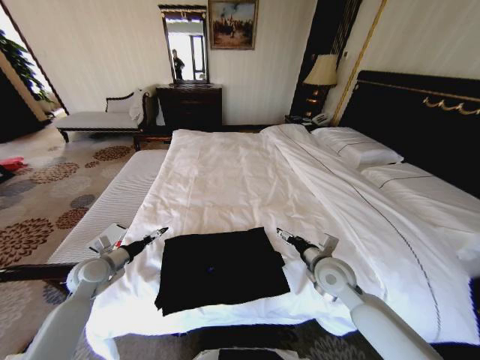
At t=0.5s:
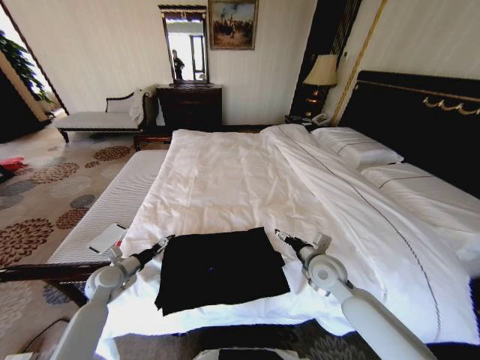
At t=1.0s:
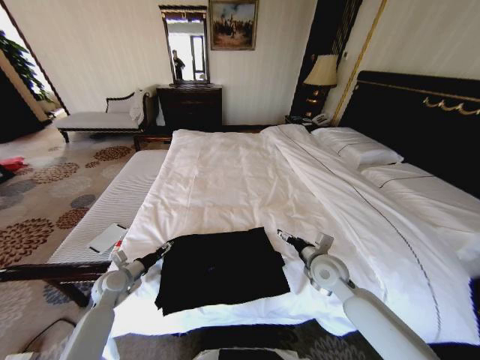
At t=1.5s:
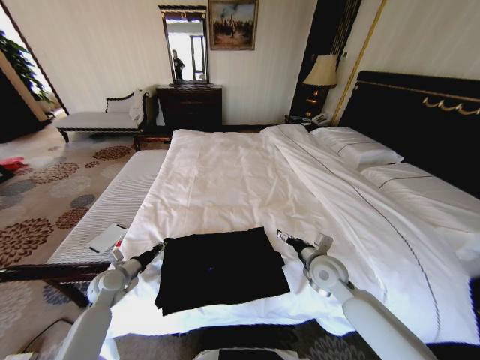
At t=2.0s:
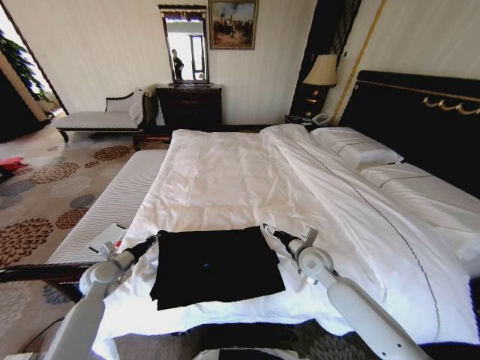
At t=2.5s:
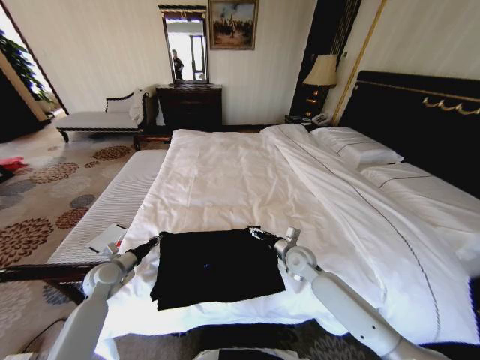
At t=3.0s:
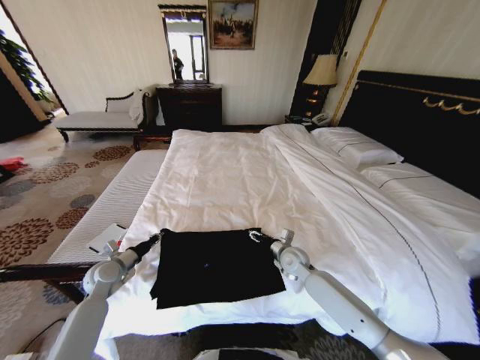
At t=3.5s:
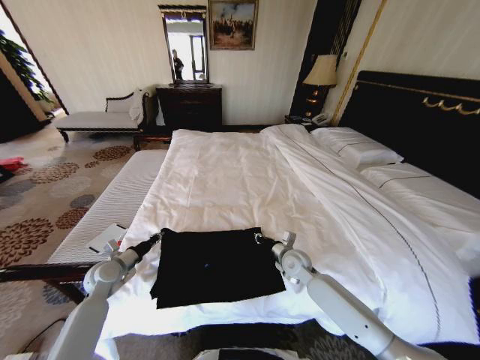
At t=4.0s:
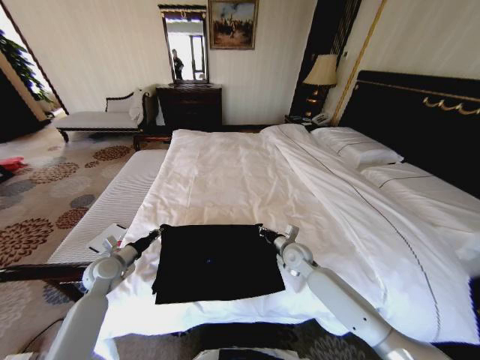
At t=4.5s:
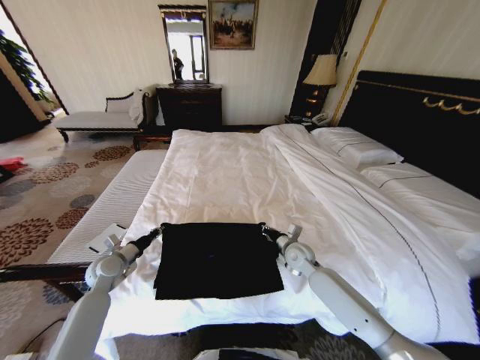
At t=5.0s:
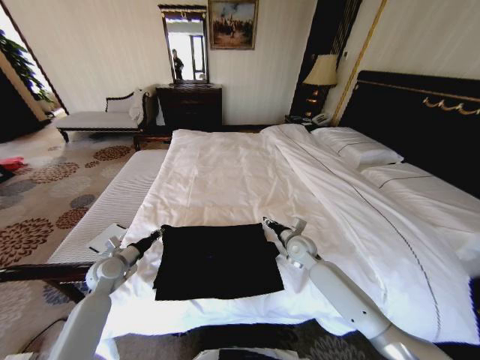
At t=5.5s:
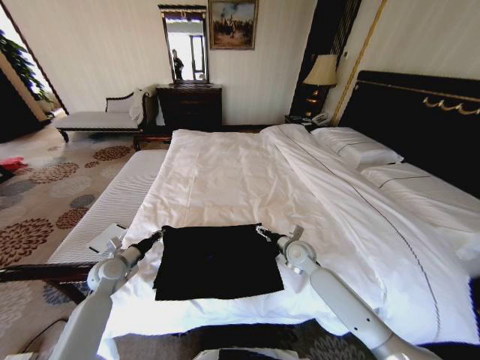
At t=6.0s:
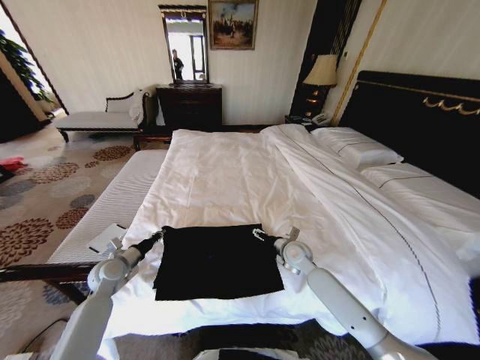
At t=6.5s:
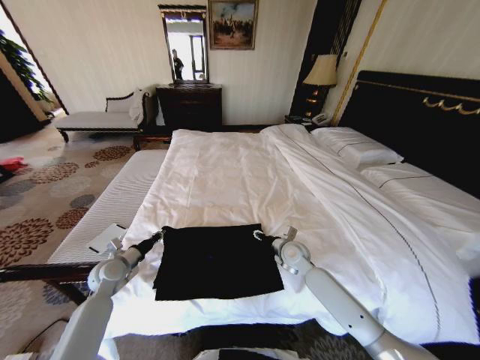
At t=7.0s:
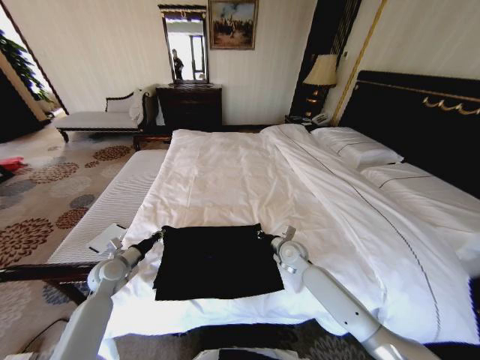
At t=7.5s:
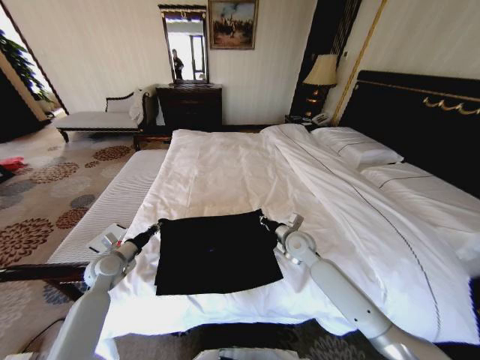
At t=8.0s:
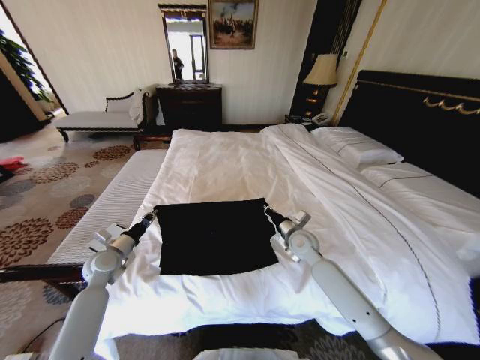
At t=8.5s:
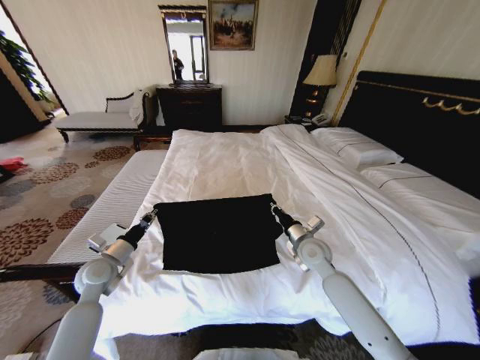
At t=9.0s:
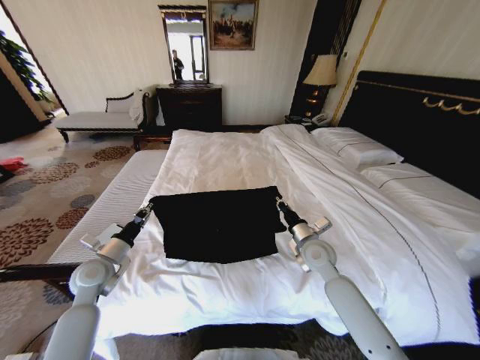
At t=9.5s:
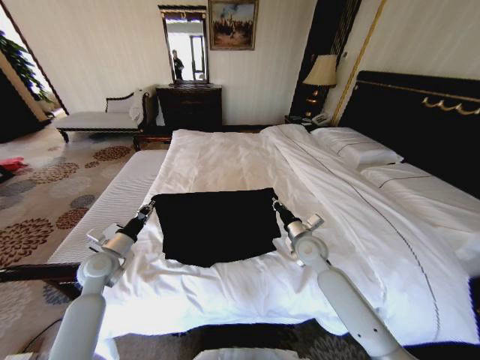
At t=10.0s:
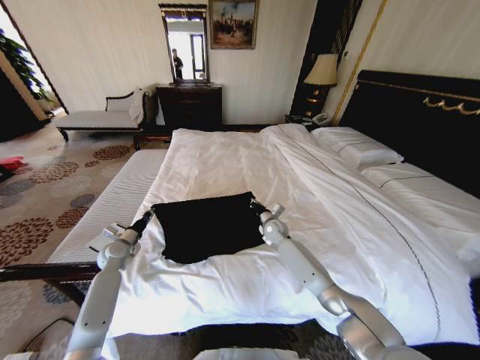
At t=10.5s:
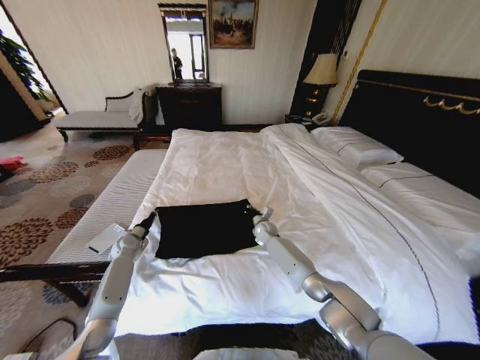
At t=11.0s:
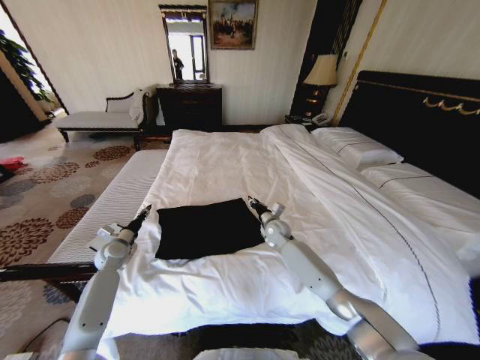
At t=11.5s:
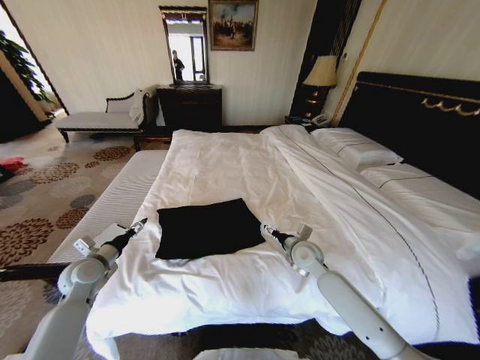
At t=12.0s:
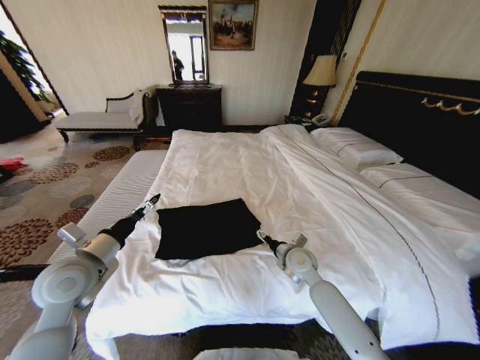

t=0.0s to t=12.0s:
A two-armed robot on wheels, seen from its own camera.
Task of the whole recording: Fold the clothes on the bed.
t=0.0s to t=2.0s: The left gripper closes. The right gripper goes approximately 5 cm forward.
t=2.0s to t=4.0s: The right gripper shifts by some 5 cm, and closes.
t=4.0s to t=6.0s: The right gripper opens.
t=6.0s to t=8.0s: The right gripper closes.
t=8.0s to t=10.0s: The left gripper moves forward, some 5 cm. The right gripper moves forward and downward, some 10 cm.
t=10.0s to t=12.0s: The right gripper is displaced backward by some 15 cm, and opens. Meanwhile the left gripper moves upward, backward and to the right, about 25 cm, and opens.

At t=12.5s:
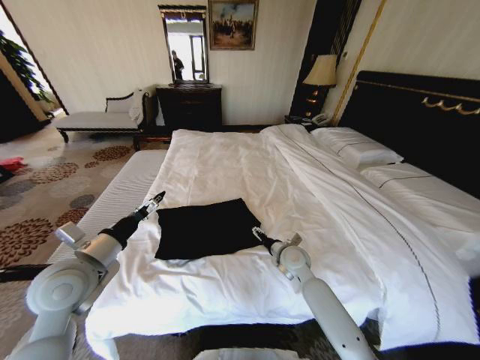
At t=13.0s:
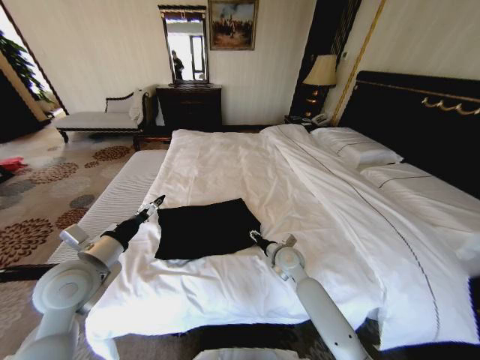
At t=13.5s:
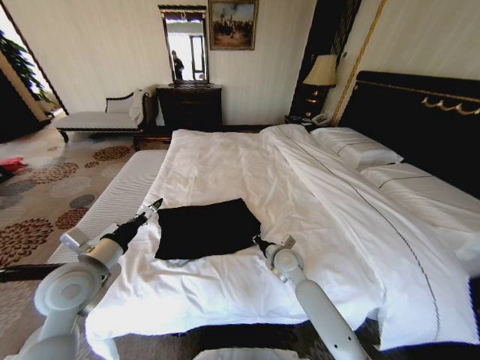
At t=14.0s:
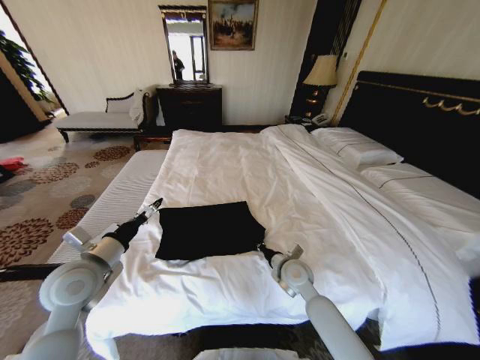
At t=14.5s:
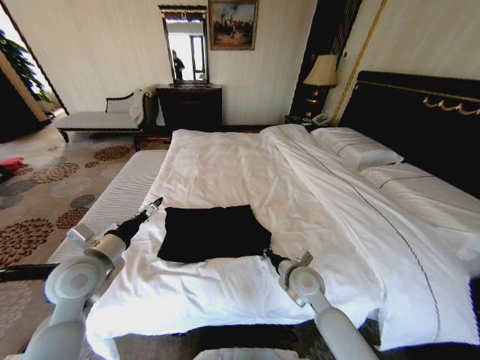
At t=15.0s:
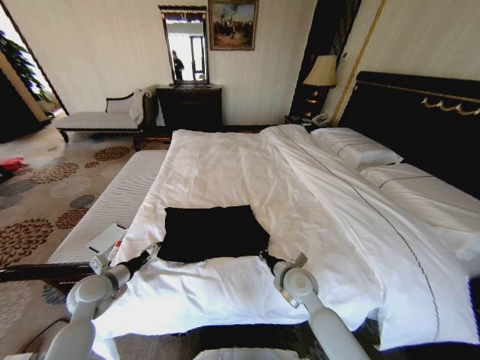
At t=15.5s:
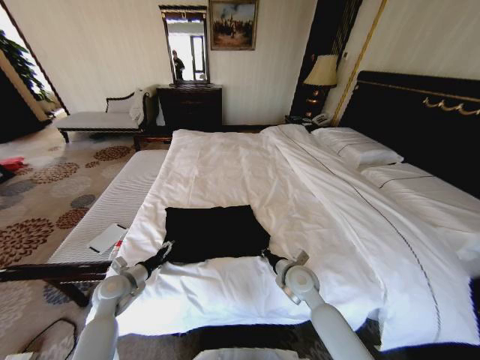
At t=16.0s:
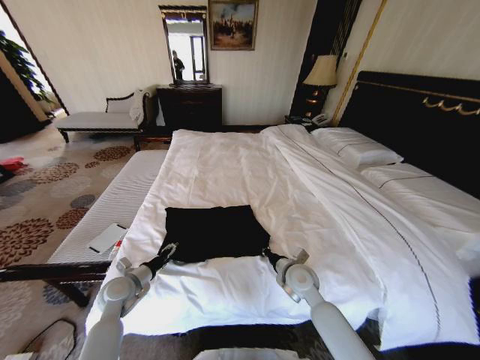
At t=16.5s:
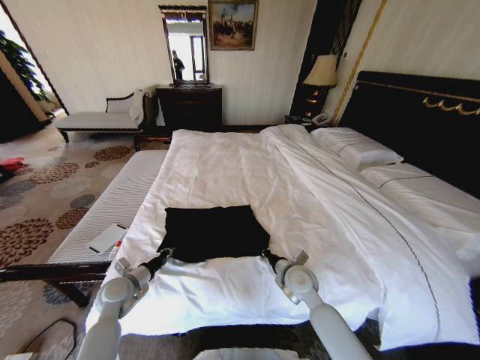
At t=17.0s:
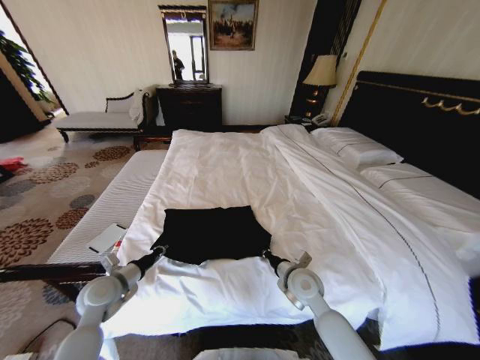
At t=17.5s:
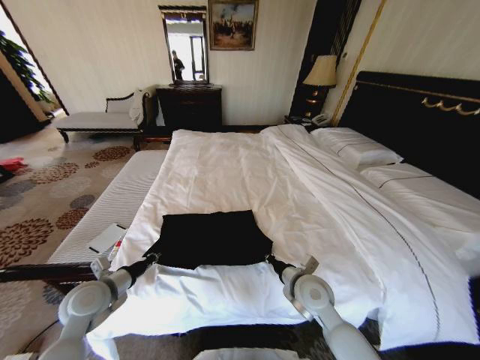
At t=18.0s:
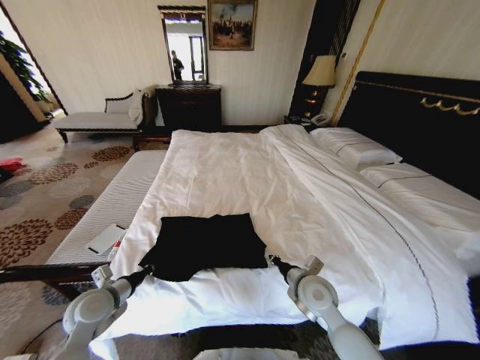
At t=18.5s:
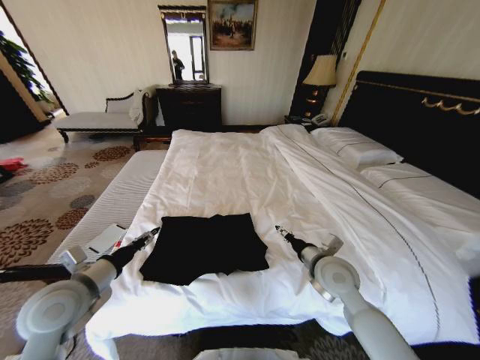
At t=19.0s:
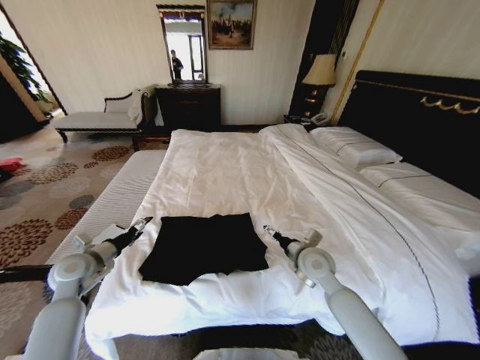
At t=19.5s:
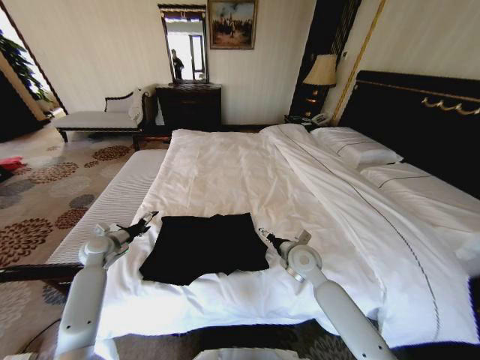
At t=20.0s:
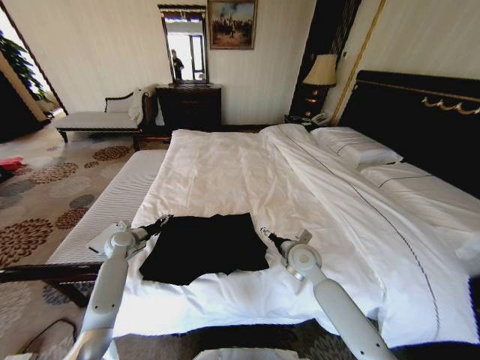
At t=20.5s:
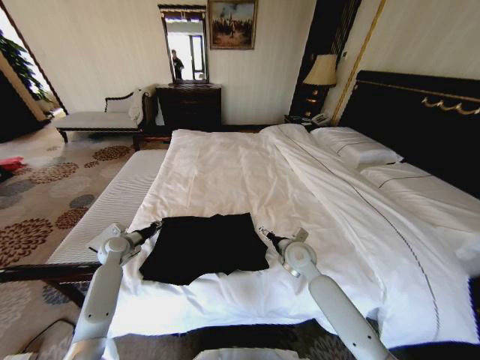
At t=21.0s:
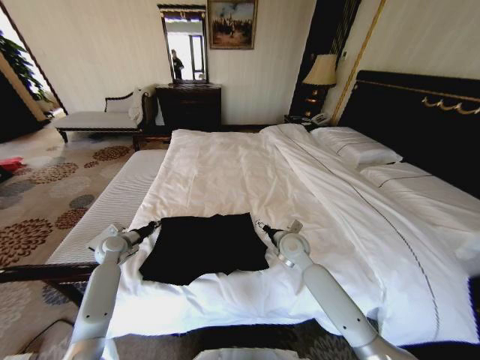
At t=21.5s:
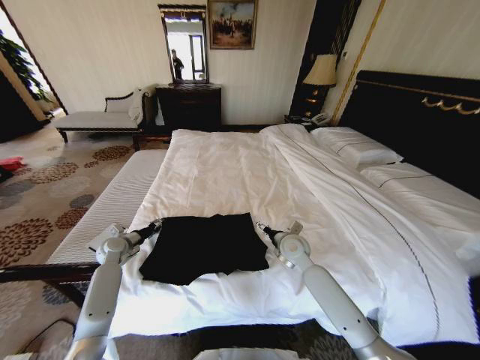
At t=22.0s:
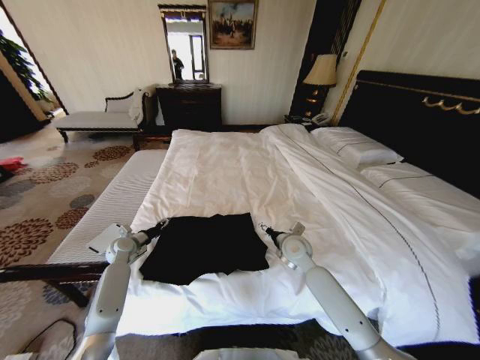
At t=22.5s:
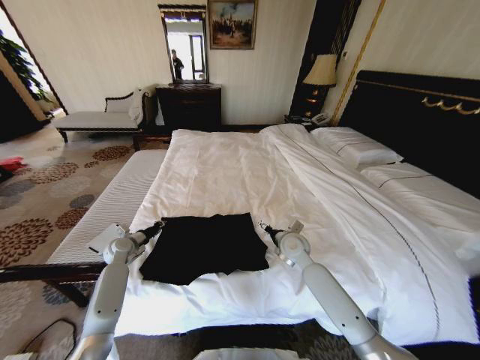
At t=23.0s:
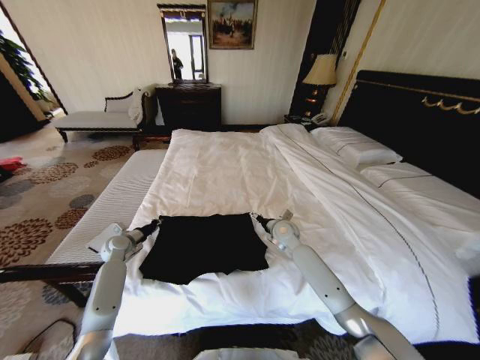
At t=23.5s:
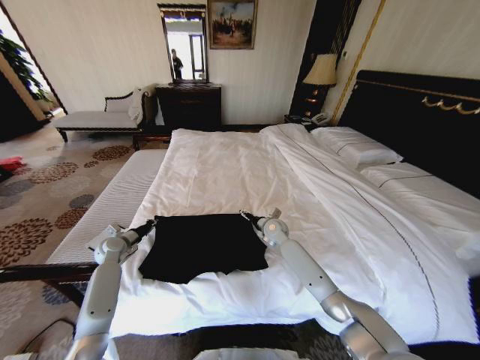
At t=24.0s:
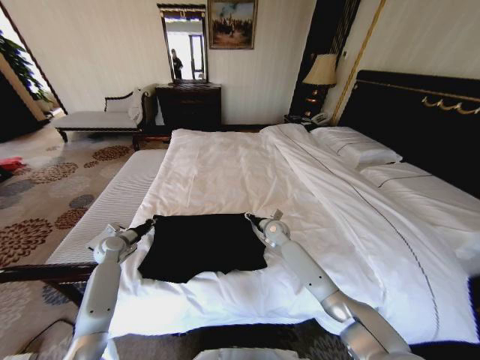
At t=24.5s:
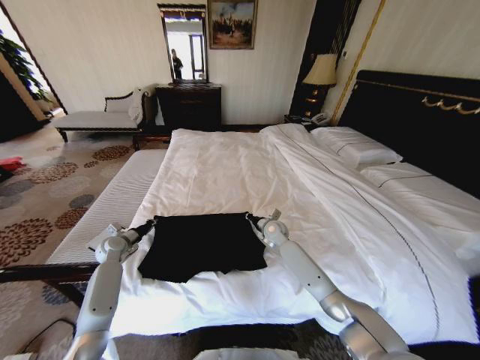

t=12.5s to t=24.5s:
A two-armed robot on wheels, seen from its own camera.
Task of the whole recording: Fold the clothes on the bed.
t=12.5s to t=14.5s: The right gripper heads backward, covering roughly 5 cm, and closes its fingers.
t=14.5s to t=16.5s: The left gripper is displaced downward by about 15 cm, and closes its fingers.
t=16.5s to t=18.5s: The right gripper is displaced upward by approximately 10 cm, and opens. The left gripper moves upward and backward, some 20 cm, and opens up.
t=18.5s to t=20.5s: The left gripper is displaced forward and downward by roughly 25 cm, and opens and closes again. The right gripper heads forward and downward, covering about 10 cm, and opens.
t=20.5s to t=22.5s: The left gripper opens and closes again.
t=22.5s to t=24.5s: The right gripper travels forward by some 10 cm, and closes.

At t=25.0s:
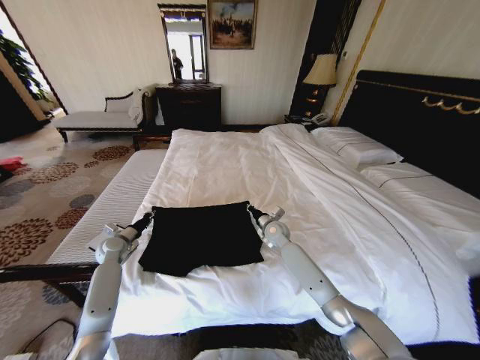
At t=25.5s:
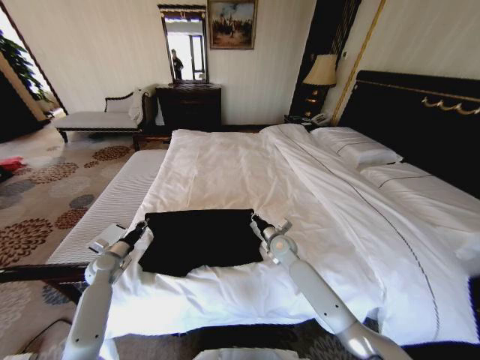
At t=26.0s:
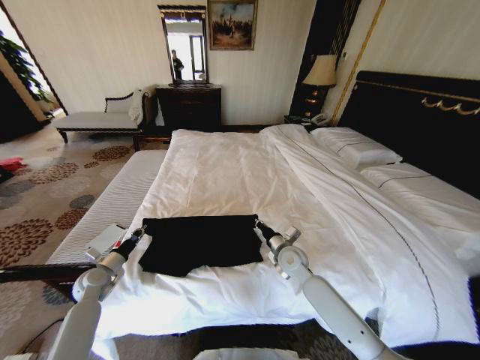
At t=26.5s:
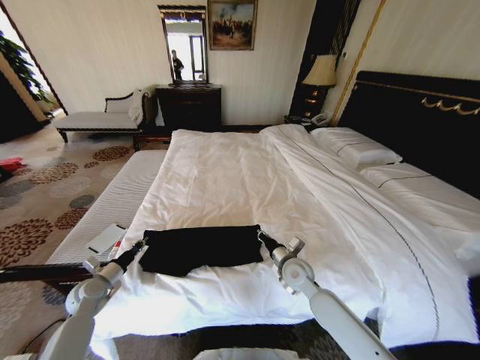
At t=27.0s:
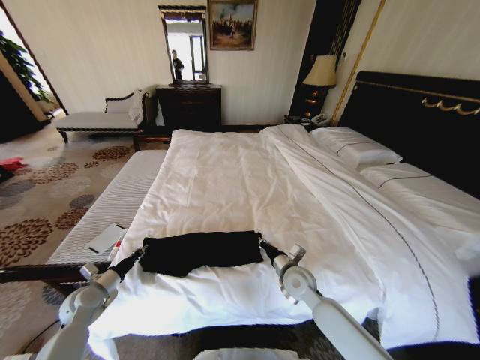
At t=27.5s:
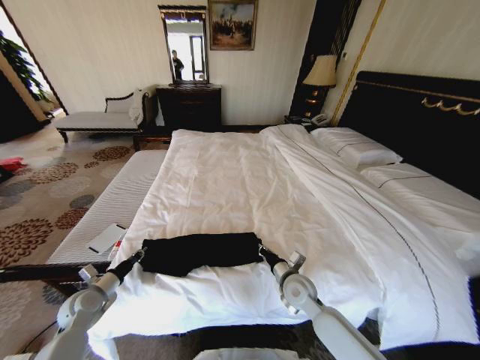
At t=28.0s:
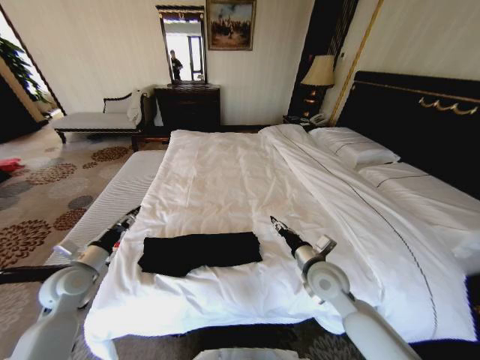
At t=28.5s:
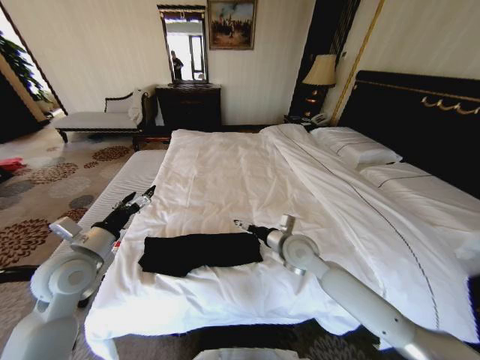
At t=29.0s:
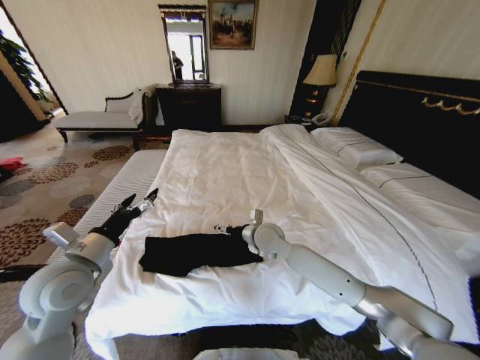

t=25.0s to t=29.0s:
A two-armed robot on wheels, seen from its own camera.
Task of the whole recording: Fold the clothes on the bed.
t=25.0s to t=27.0s: The grippers both shift backward by roughly 15 cm.
t=27.0s to t=29.0s: The left gripper heads upward and to the right, covering some 25 cm, and opens its fingers. Meanwhile the right gripper moves upward, forward and to the left, roughly 15 cm, and opens its fingers.
